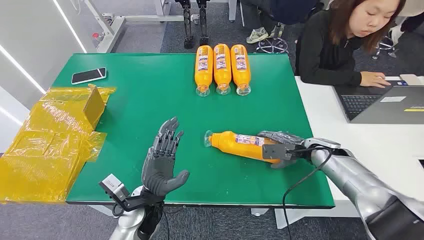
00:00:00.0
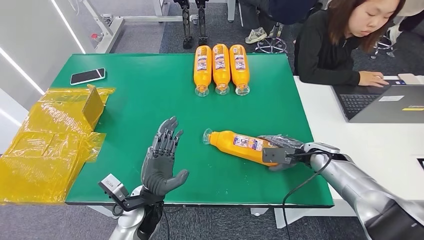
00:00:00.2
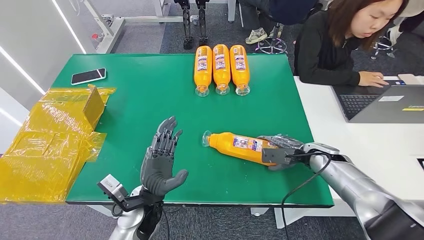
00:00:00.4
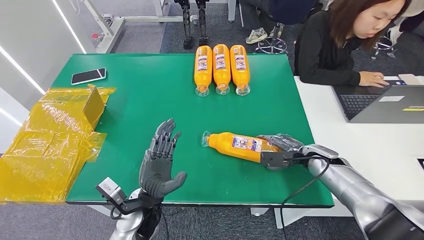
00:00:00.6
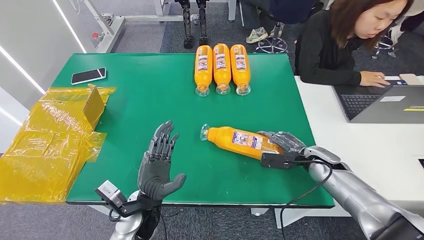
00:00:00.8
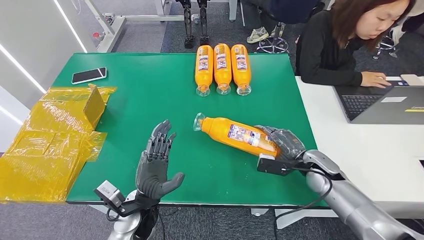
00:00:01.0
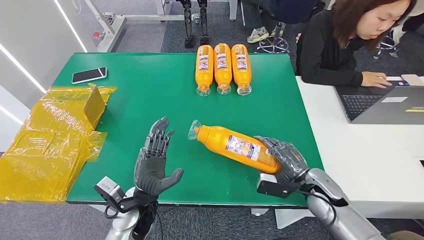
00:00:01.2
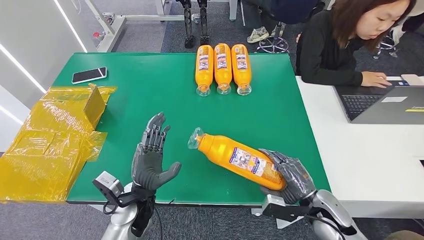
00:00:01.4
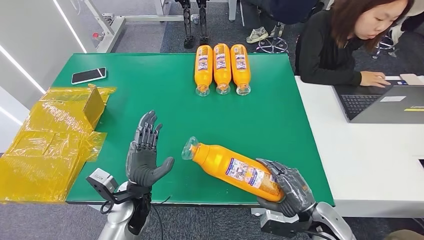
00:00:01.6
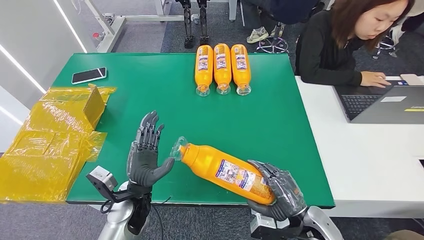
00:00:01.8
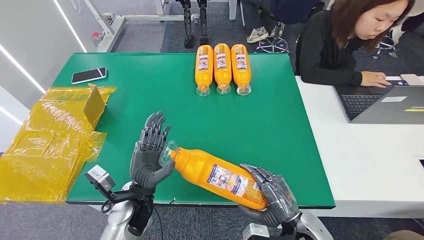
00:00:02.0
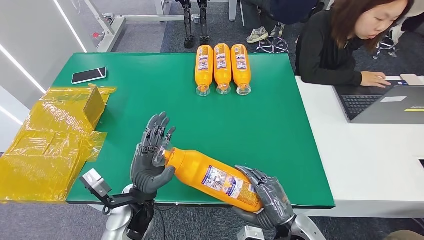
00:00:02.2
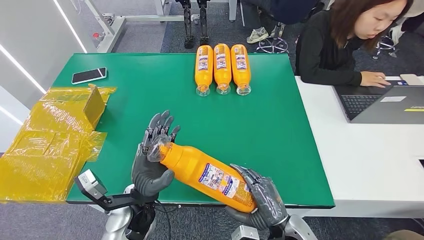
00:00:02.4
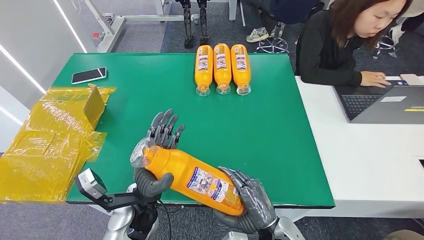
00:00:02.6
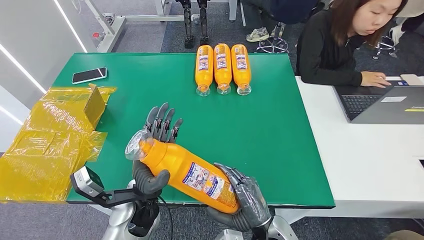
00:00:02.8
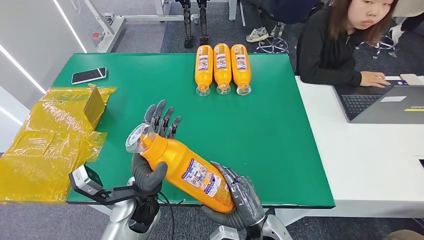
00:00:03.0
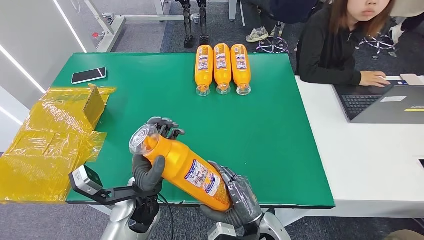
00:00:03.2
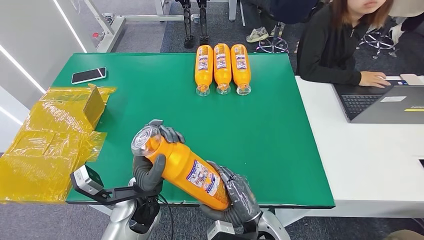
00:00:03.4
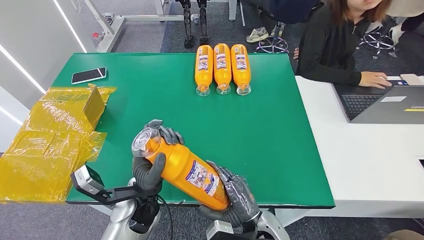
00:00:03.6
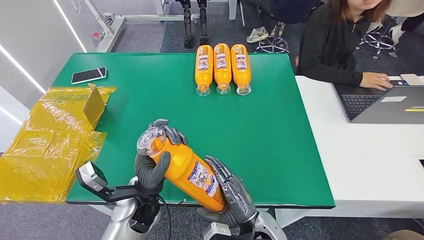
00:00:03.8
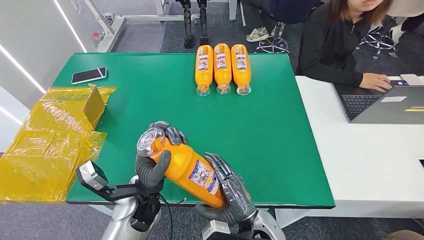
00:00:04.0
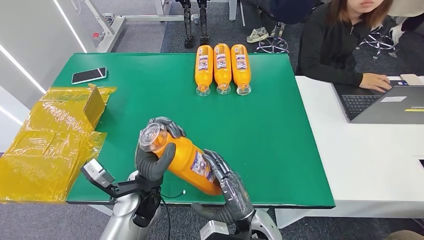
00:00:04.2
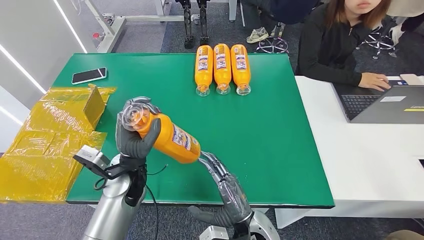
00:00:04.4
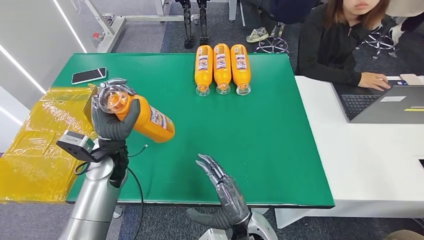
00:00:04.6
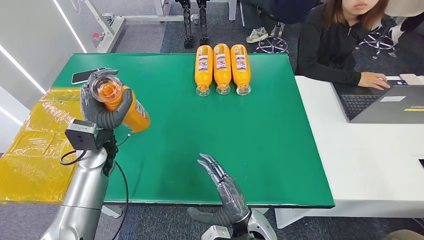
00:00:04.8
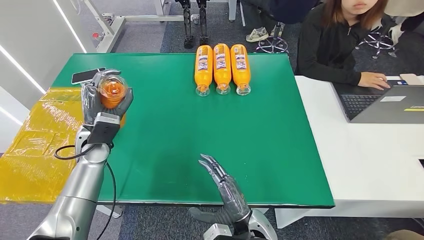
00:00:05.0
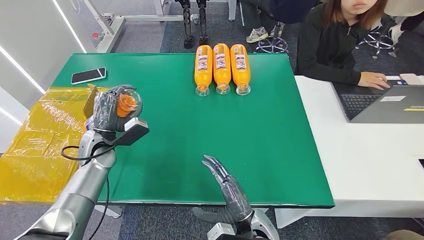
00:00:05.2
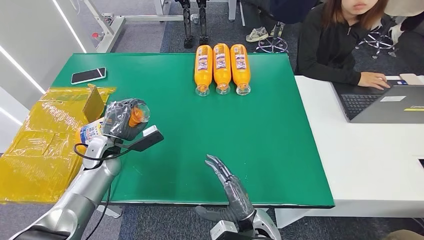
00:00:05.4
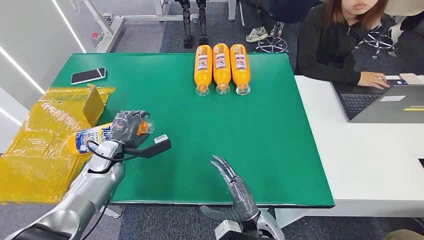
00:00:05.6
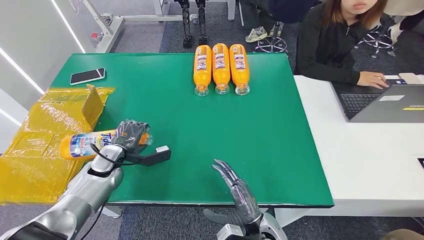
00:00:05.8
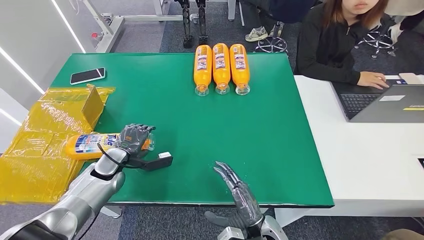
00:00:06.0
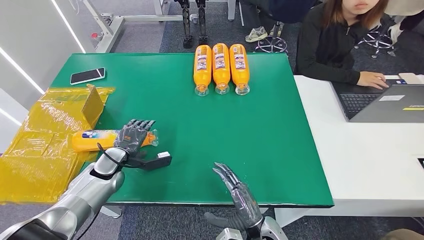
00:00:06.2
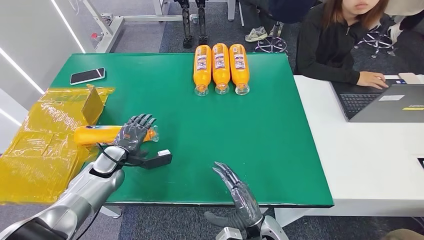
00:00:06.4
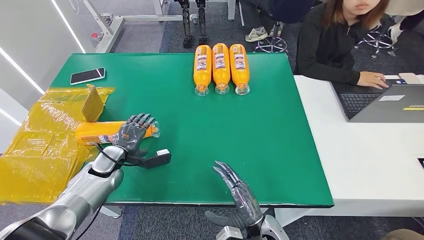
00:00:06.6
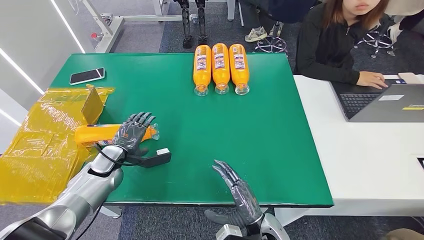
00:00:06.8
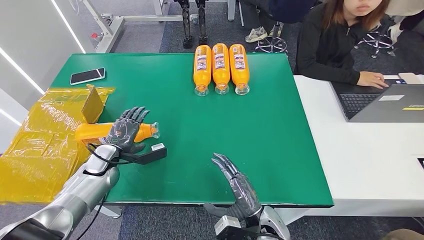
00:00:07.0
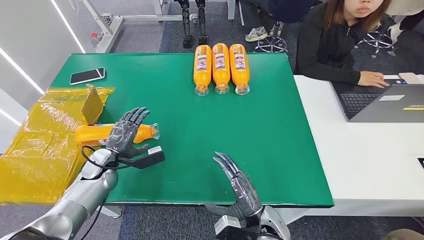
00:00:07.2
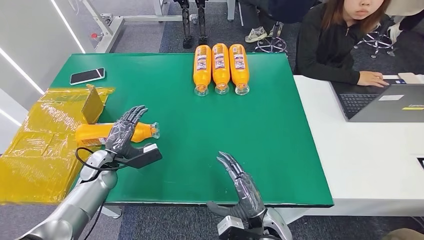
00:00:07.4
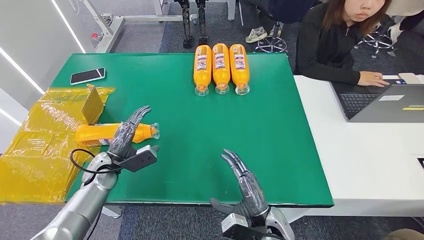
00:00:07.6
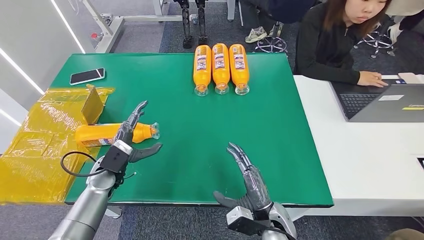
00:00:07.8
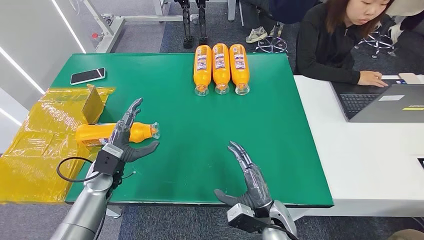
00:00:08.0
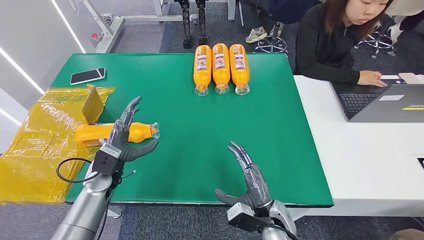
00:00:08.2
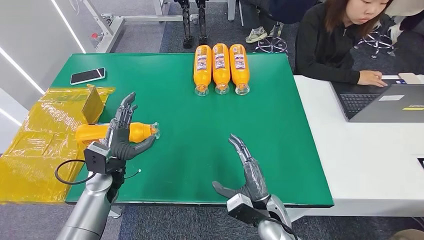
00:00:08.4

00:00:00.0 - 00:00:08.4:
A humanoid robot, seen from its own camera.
Step, 00:00:00.0 - 00:00:02.6: Pick up the bottle from the table.
Step, 00:00:02.8 - 00:00:08.4: Turn the bottle to the front side.
00:00:01.4 - 00:00:02.8: The right hand goes about 20 cm to the left and backward, while the left hand shifts by roughly 5 cm.
00:00:02.8 - 00:00:04.2: The hands stay close to where they were, moving slightly.
00:00:04.2 - 00:00:05.6: The left hand is displaced to the left and forward by some 20 cm. Meanwhile the right hand shifts by approximately 5 cm.
00:00:07.0 - 00:00:08.4: The left hand heads to the right, covering approximately 10 cm.
